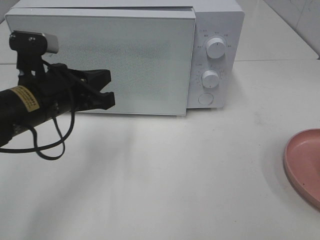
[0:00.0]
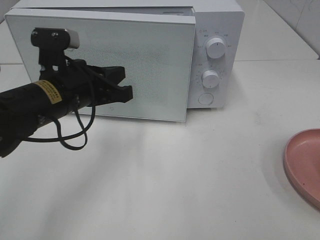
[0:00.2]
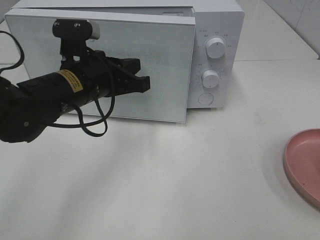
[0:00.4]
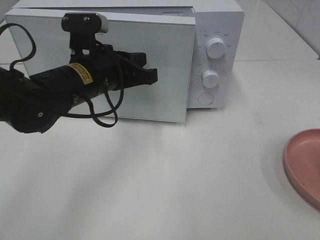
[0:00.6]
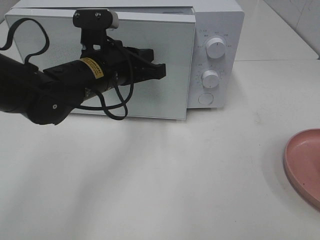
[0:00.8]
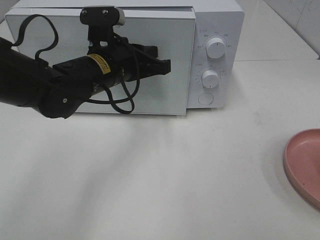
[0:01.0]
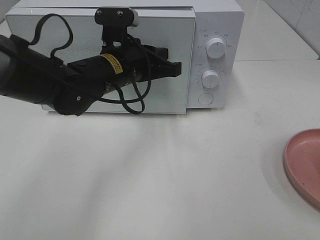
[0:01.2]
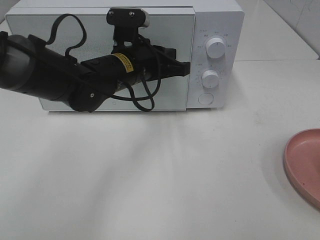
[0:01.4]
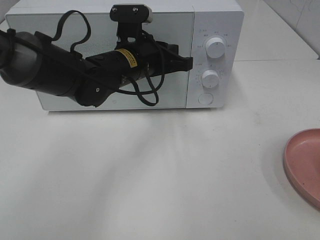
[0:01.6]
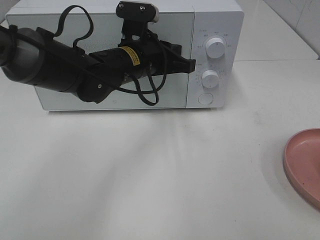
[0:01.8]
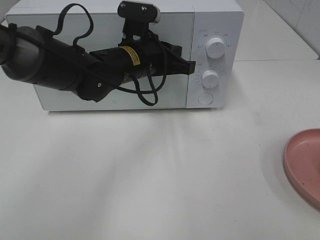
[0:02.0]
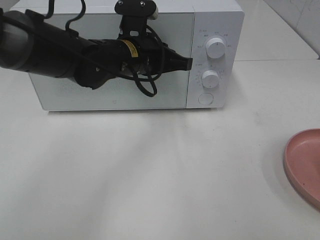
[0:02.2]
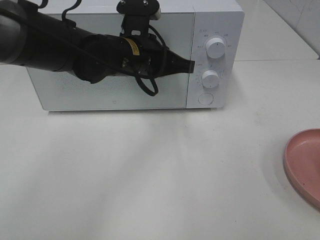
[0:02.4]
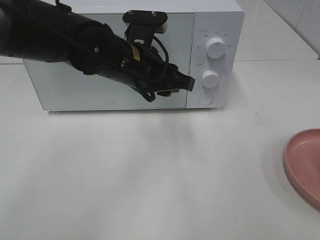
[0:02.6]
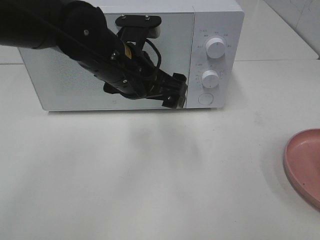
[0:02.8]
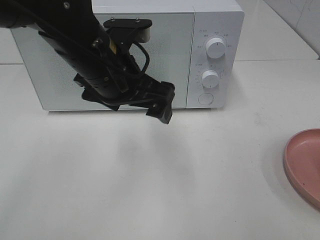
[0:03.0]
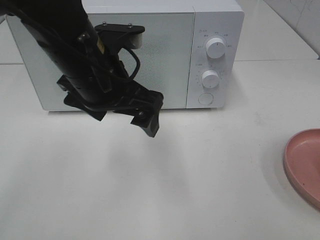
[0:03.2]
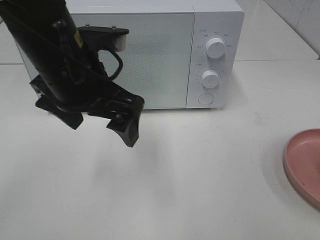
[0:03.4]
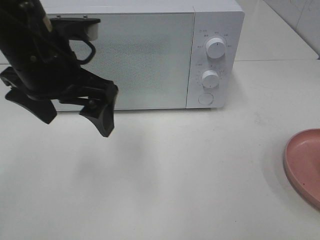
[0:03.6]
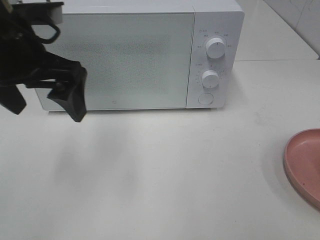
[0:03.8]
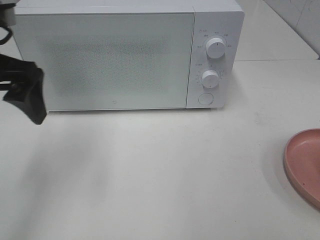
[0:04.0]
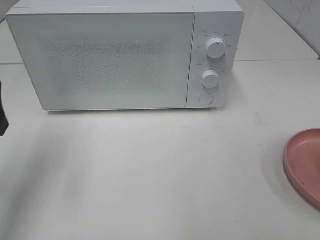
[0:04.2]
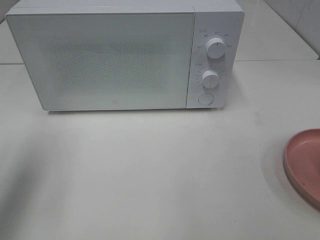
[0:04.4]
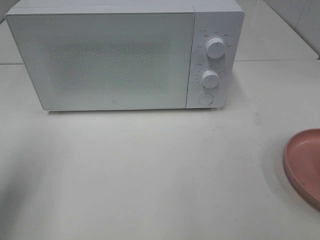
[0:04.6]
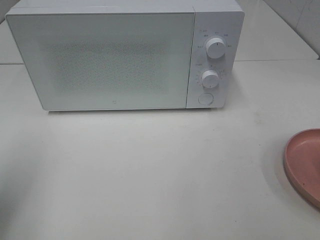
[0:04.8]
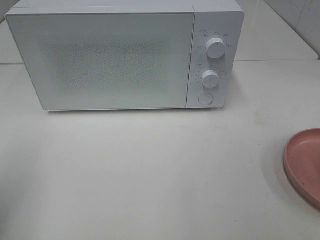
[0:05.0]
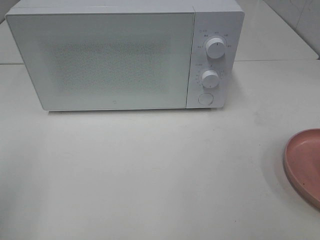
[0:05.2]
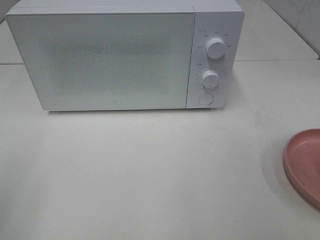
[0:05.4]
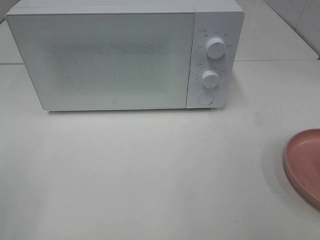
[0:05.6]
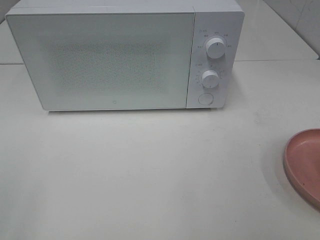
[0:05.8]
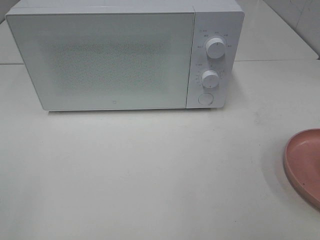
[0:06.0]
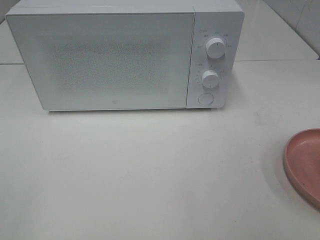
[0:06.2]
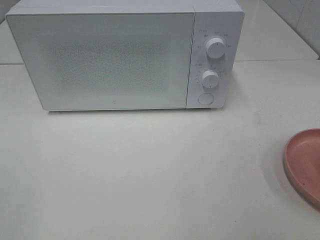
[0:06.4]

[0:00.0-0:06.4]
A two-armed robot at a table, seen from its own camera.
Task of the whole recording: Heat the burger.
Step, 0:00.0 to 0:02.2: Left hand: close the microwave door.
0:00.0 to 0:01.6: The left gripper shifts about 15 cm to the right and forward.
0:01.6 to 0:03.2: The left gripper is displaced backward and upward by roughly 10 cm, and opens its fingers.
0:03.2 to 0:04.8: The left gripper is displaced to the left and backward by about 25 cm.
0:04.8 to 0:06.4: The left gripper travels backward by roughly 15 cm.

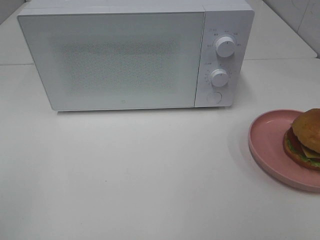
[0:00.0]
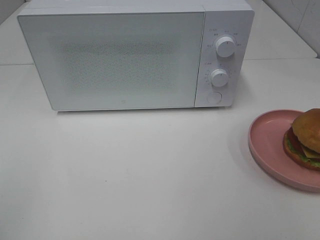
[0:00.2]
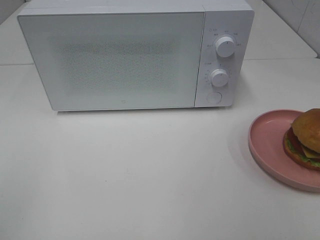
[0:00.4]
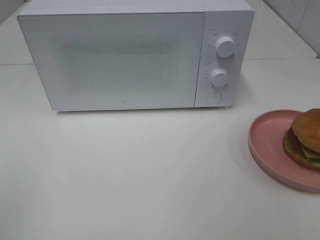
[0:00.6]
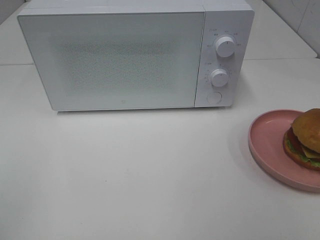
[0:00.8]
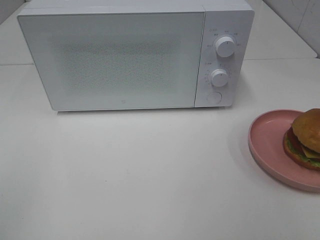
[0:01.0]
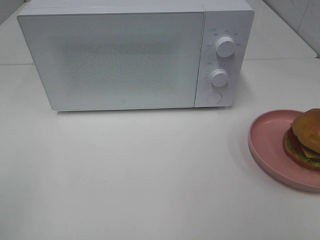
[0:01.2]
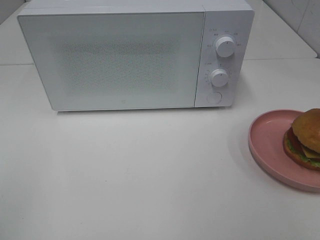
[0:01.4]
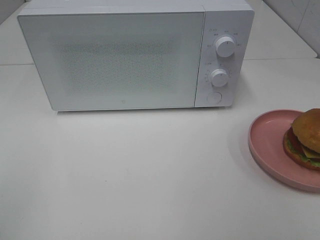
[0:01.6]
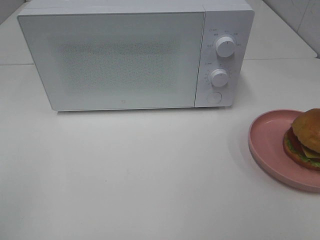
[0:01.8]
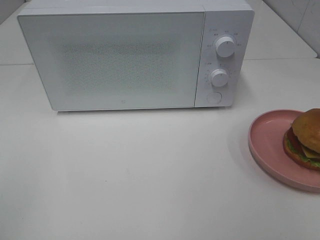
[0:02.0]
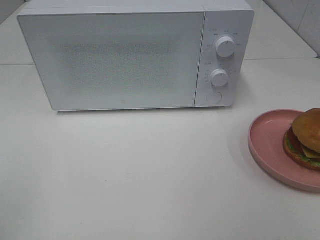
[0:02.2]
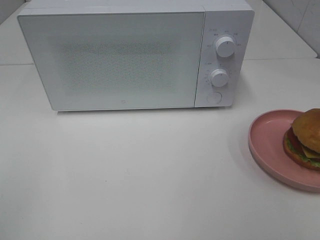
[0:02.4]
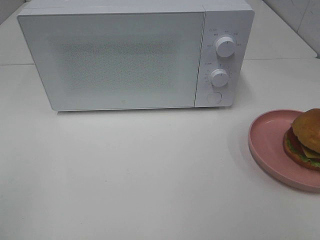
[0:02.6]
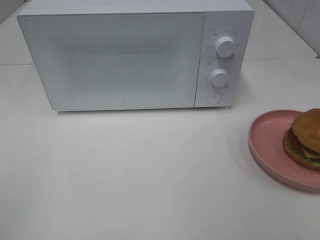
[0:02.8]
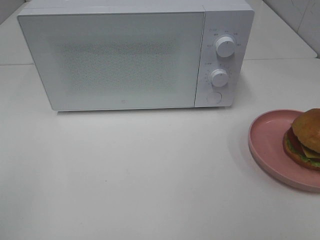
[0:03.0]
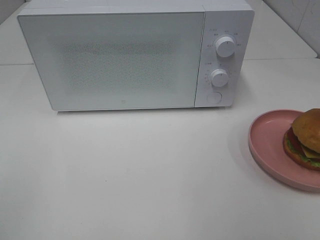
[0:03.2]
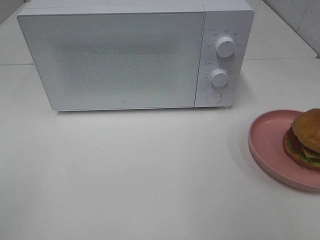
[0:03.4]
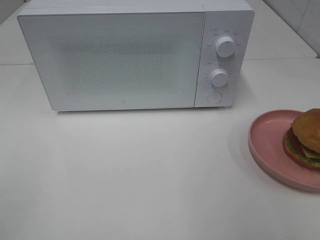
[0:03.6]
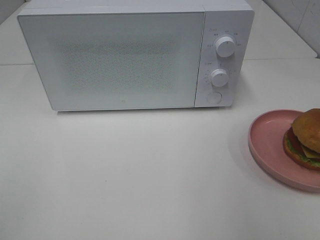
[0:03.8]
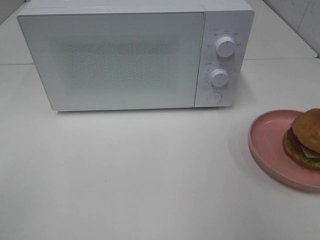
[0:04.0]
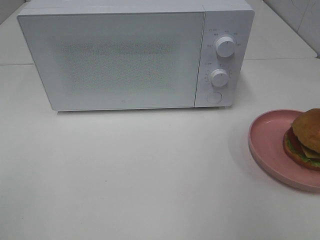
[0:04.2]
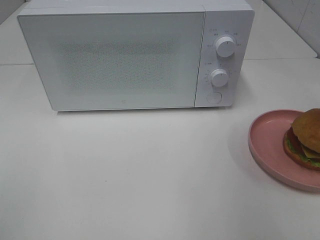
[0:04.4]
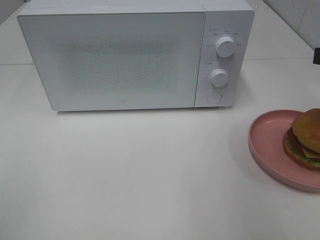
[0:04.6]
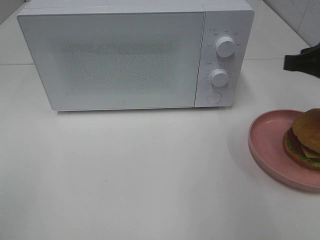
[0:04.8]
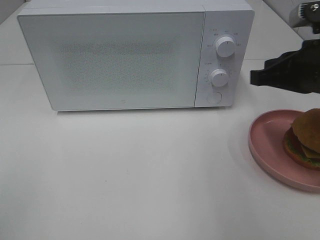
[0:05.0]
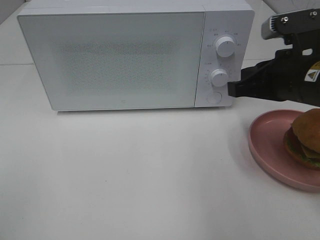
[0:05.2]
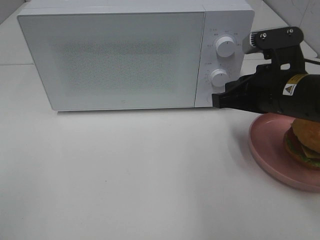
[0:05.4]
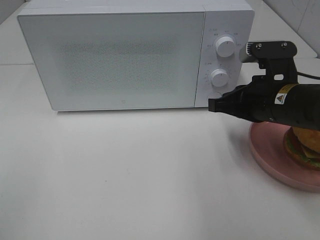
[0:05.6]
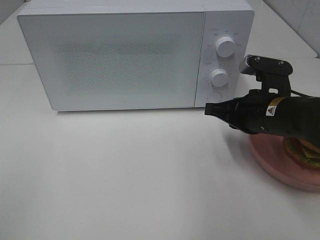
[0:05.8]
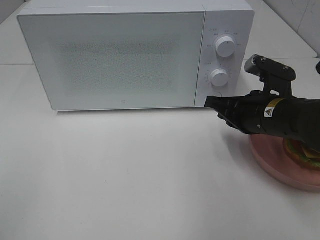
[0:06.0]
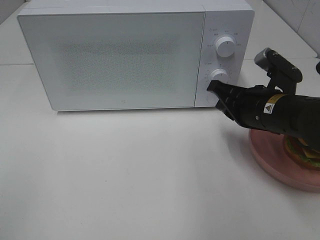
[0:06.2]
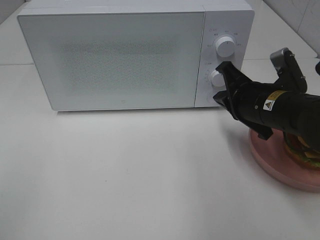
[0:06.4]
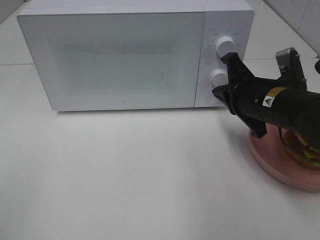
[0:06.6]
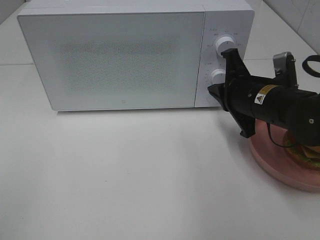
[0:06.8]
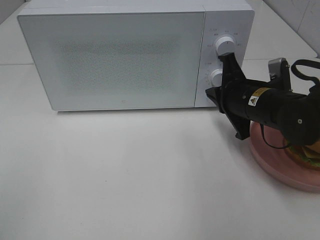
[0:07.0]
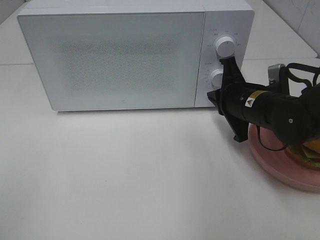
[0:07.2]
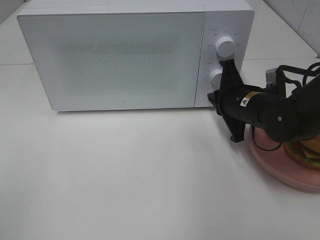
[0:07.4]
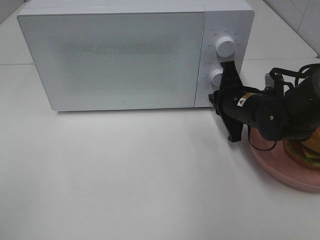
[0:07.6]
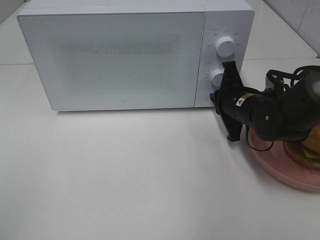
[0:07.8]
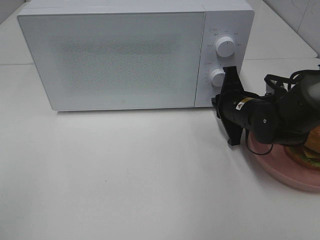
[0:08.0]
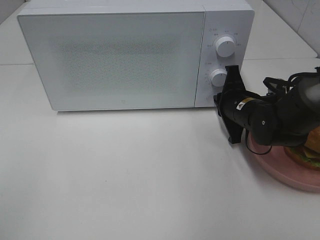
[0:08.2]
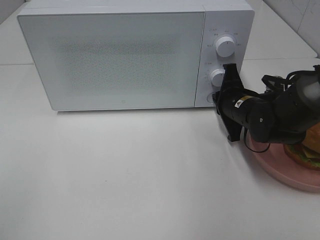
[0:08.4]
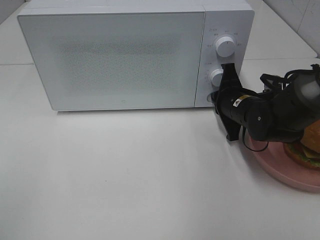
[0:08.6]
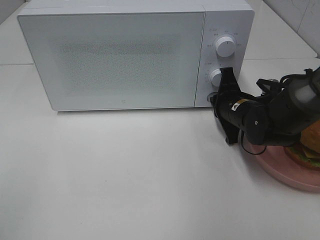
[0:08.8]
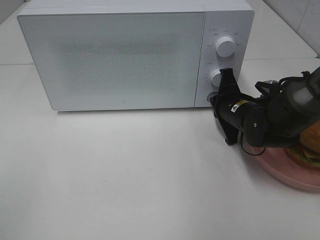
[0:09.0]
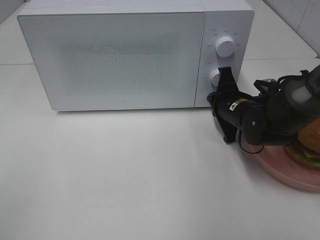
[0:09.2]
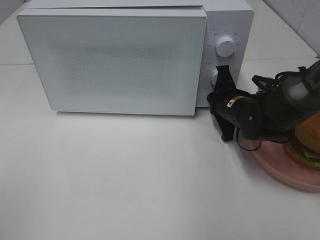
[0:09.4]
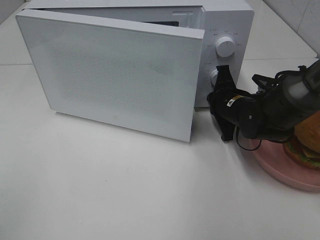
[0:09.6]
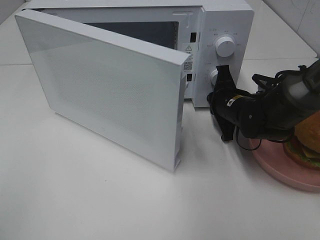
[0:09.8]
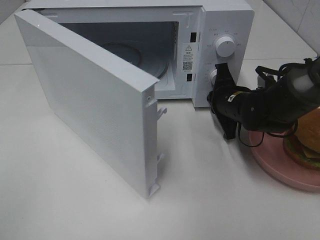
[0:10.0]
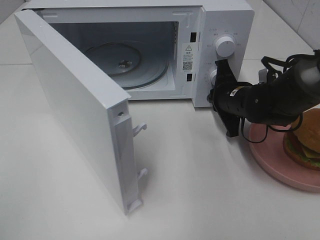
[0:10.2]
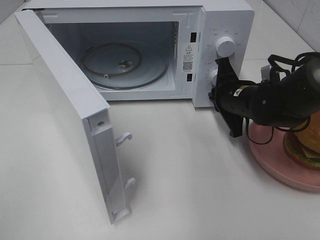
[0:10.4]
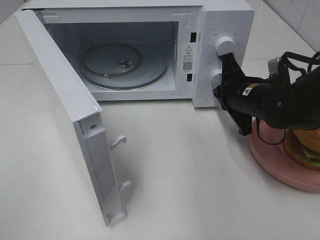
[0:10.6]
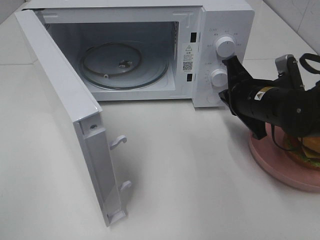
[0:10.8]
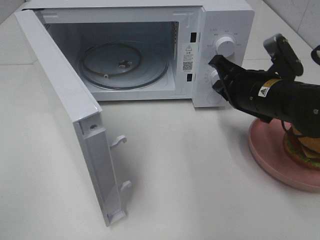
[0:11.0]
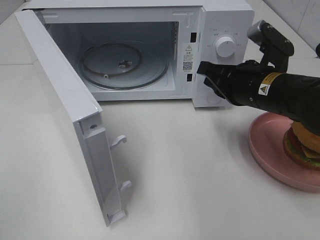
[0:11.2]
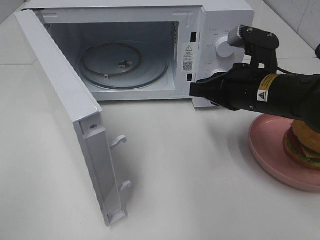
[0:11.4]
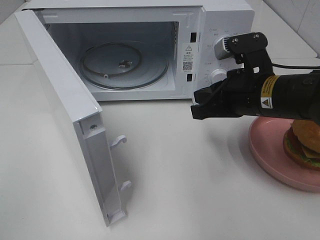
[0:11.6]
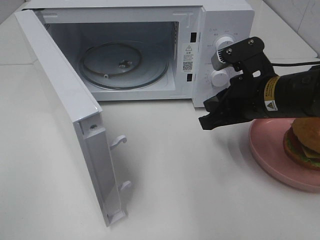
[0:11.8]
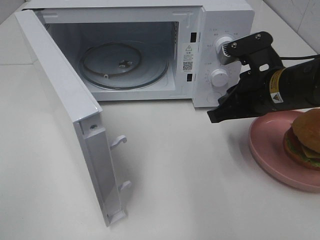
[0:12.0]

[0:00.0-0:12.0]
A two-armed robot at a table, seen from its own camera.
Task of the whole recording: Heat the burger.
Step, 0:00.0 to 0:10.4: Right hand: press the switch.
0:00.0 to 0:03.0: The two grippers keep their place.
0:04.4 to 0:06.0: The right gripper shifts roughly 20 cm downward, to the left and forward.
0:06.0 to 0:07.6: The right gripper is displaced forward by some 5 cm.
0:07.6 to 0:09.0: There are only small adjustments of the grippers.
0:10.4 to 0:12.0: The right gripper travels upward and backward by about 10 cm.

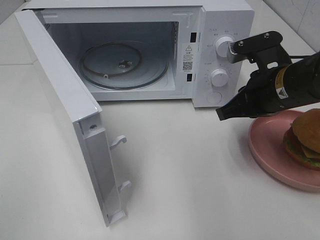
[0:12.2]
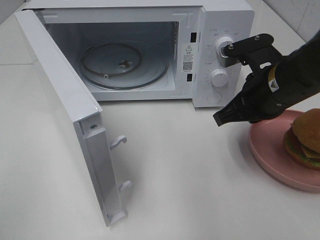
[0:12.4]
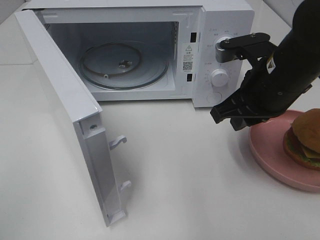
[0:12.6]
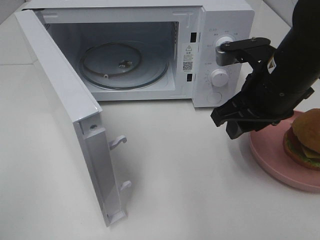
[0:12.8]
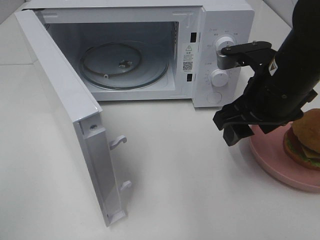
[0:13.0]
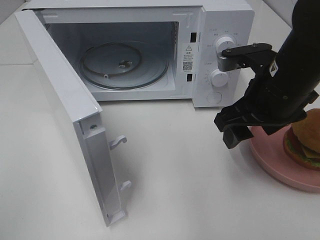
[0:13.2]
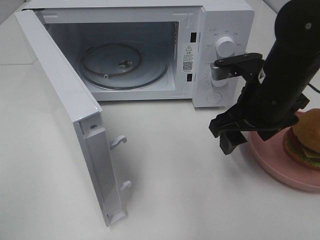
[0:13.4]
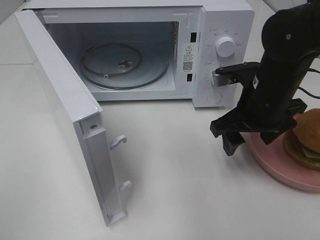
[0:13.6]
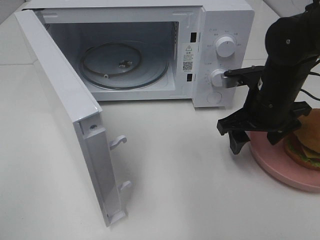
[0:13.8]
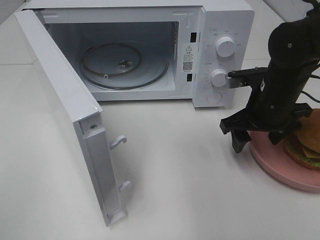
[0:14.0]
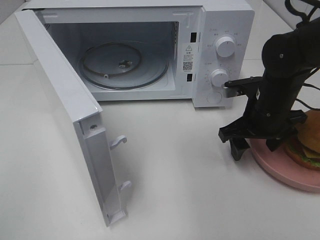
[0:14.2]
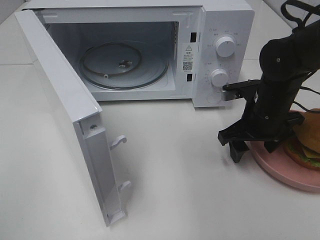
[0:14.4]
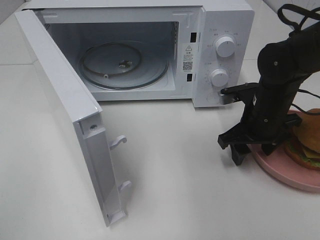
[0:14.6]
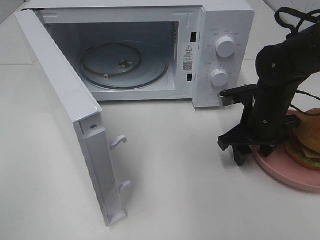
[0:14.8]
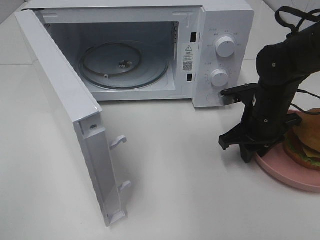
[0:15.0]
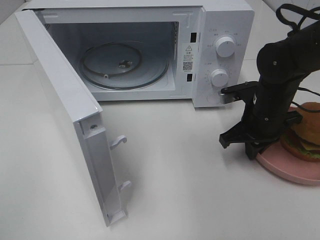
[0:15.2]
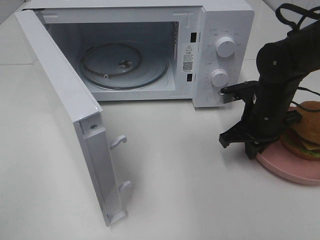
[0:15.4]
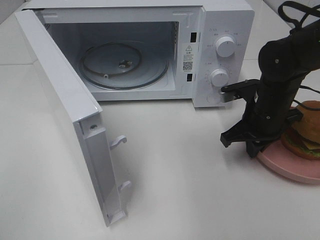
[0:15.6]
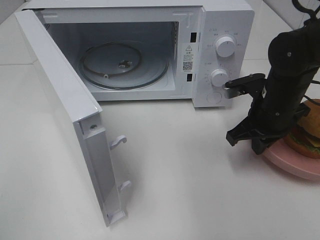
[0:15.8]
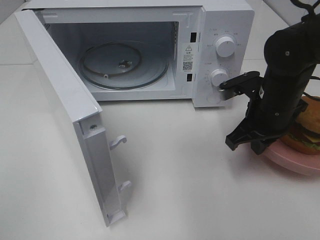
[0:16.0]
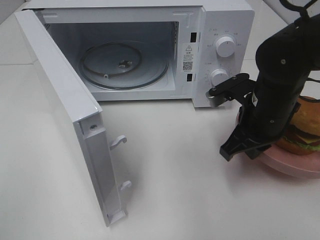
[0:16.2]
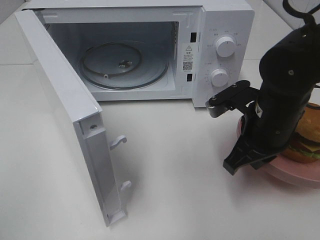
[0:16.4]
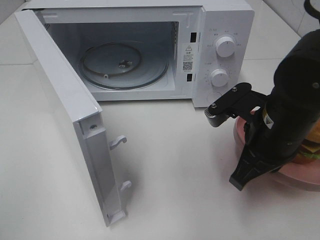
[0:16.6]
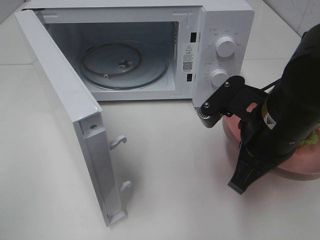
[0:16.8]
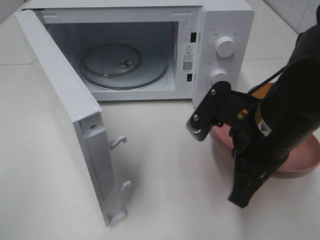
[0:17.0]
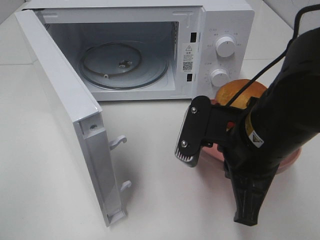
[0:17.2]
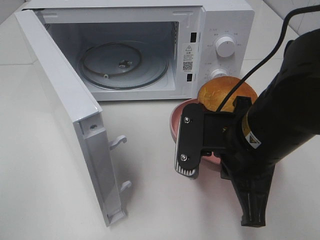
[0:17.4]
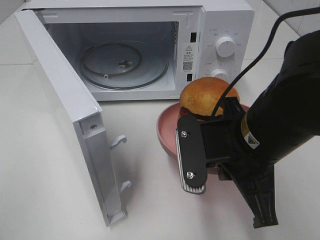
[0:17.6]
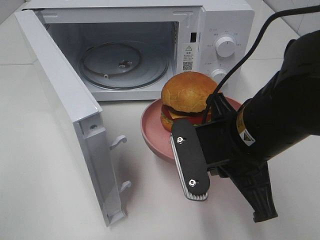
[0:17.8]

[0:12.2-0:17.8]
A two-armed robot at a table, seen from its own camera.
Task of the whole recording: Heat the burger.
Step, 0:12.2 to 0:15.2: Right hand: grab the plate with the hamburger.
0:12.2 to 0:13.6: The right gripper opens.
0:13.6 to 0:15.0: The right gripper goes some 5 cm downward, and closes up.
0:15.0 to 0:16.4: The right gripper goes approximately 10 cm backward and upward, and closes its fingers.
0:16.4 to 0:17.8: The right gripper is displaced backward and to the left by approximately 10 cm.
